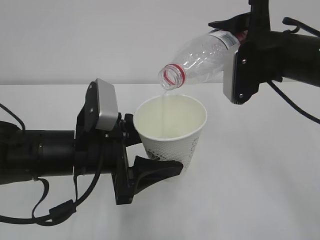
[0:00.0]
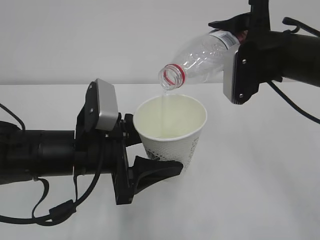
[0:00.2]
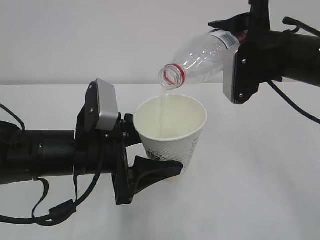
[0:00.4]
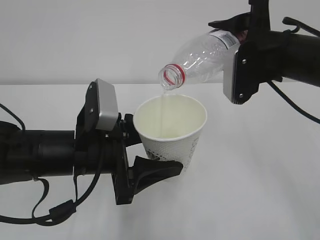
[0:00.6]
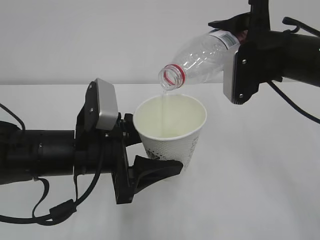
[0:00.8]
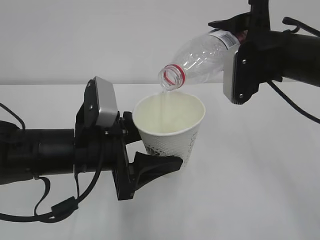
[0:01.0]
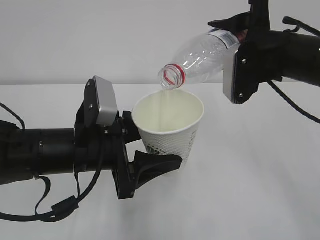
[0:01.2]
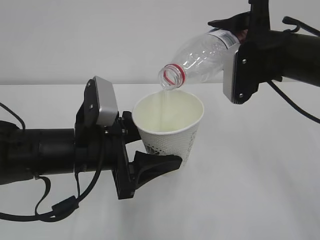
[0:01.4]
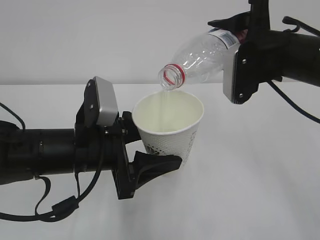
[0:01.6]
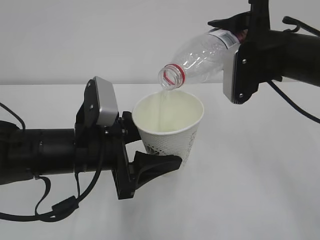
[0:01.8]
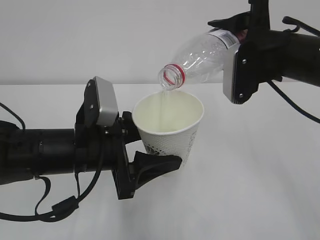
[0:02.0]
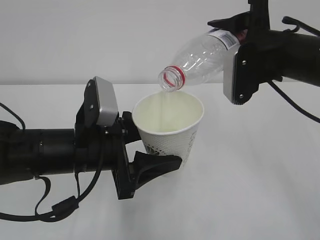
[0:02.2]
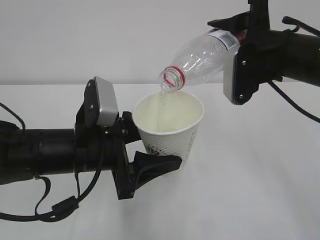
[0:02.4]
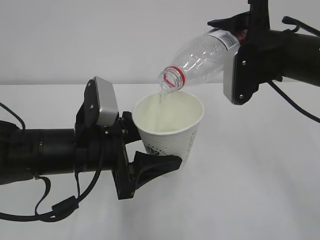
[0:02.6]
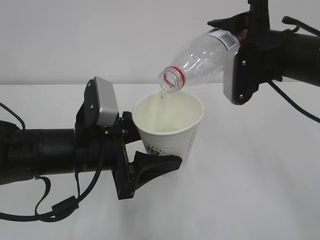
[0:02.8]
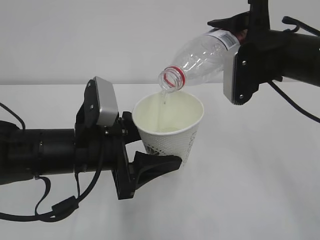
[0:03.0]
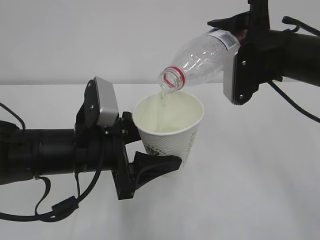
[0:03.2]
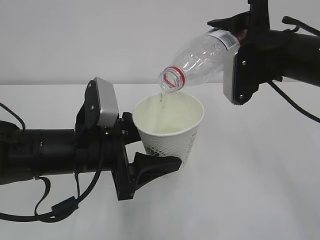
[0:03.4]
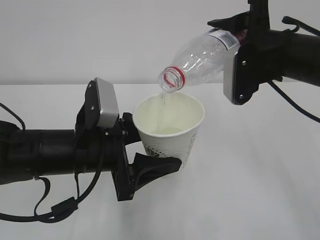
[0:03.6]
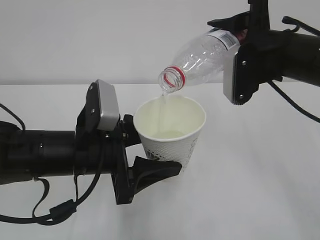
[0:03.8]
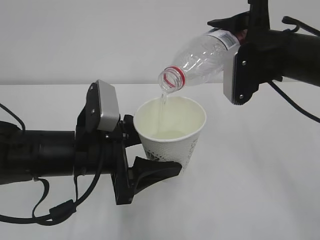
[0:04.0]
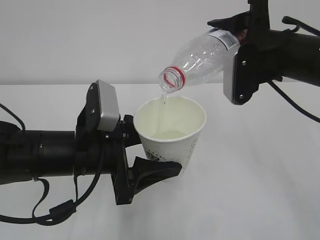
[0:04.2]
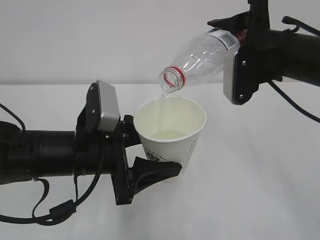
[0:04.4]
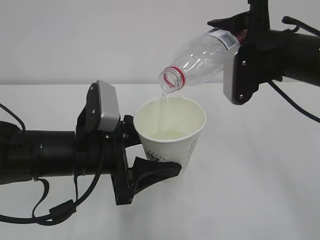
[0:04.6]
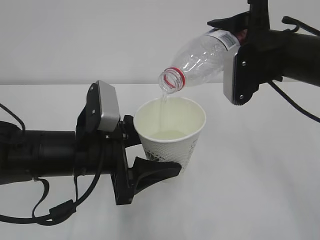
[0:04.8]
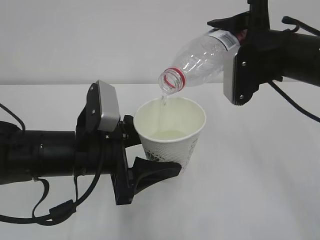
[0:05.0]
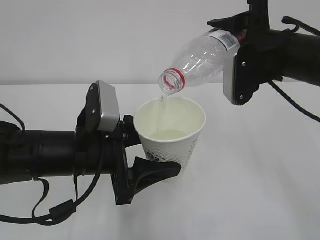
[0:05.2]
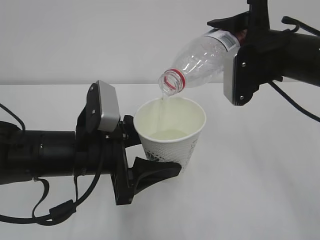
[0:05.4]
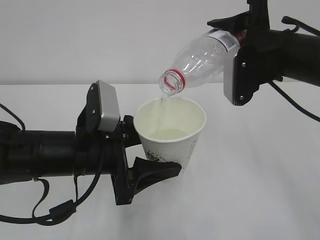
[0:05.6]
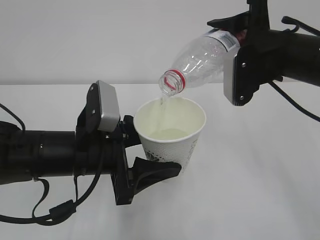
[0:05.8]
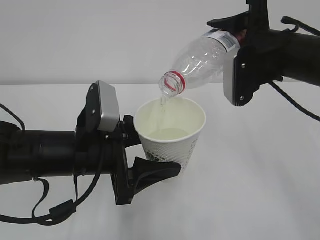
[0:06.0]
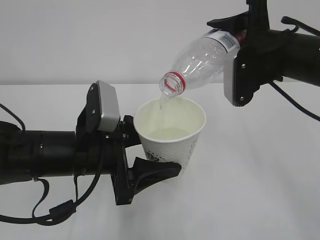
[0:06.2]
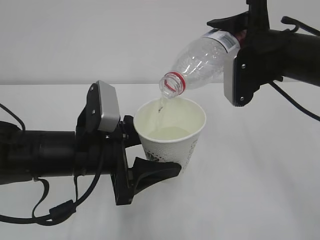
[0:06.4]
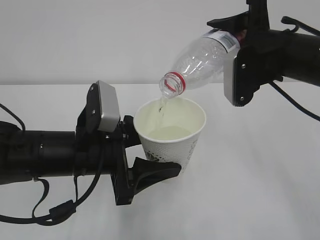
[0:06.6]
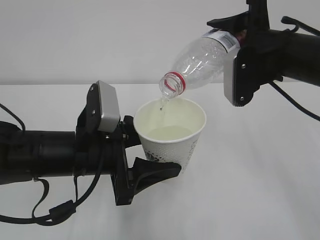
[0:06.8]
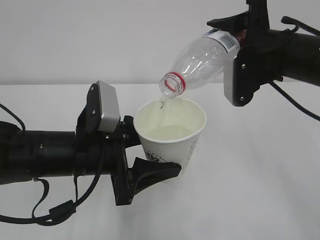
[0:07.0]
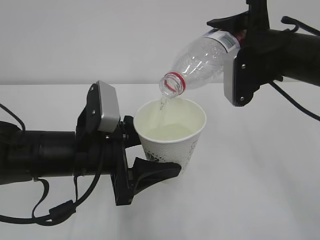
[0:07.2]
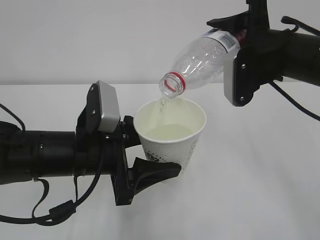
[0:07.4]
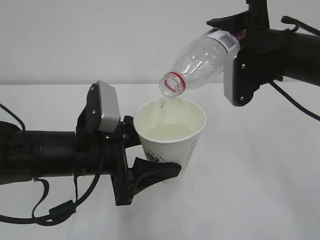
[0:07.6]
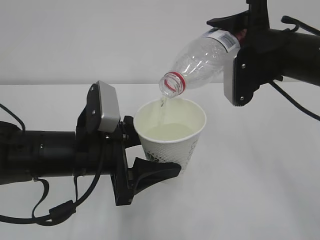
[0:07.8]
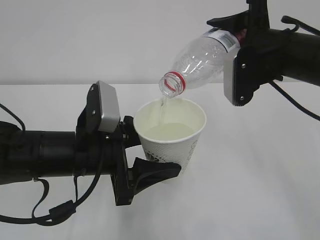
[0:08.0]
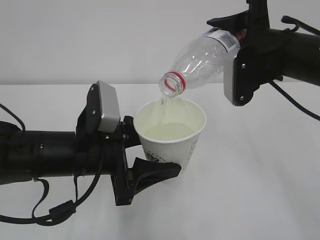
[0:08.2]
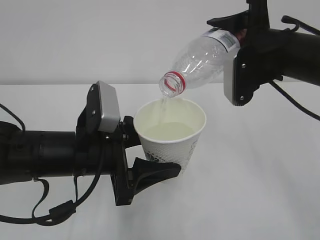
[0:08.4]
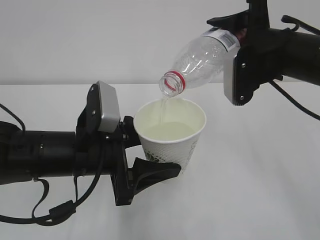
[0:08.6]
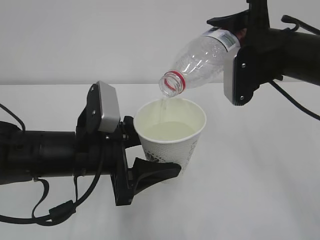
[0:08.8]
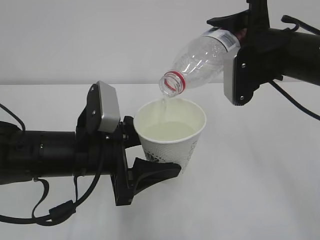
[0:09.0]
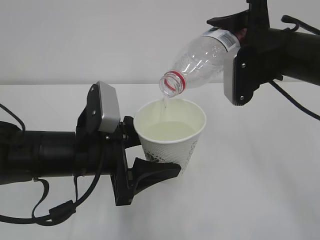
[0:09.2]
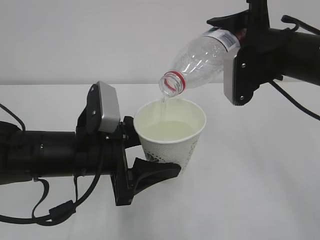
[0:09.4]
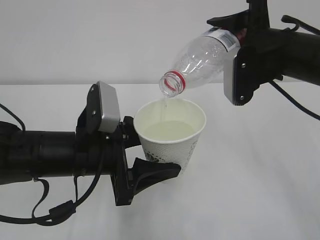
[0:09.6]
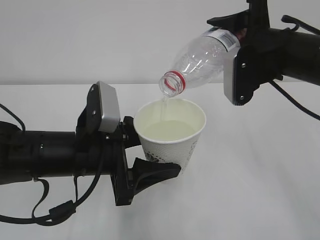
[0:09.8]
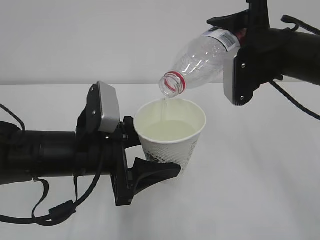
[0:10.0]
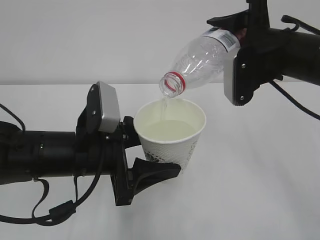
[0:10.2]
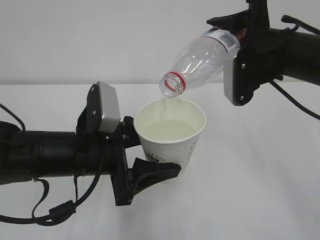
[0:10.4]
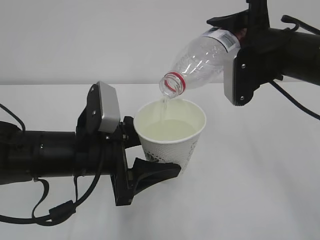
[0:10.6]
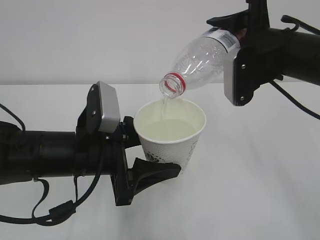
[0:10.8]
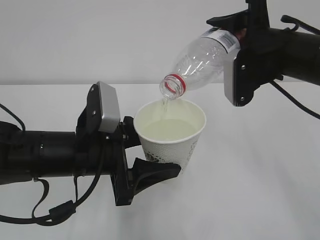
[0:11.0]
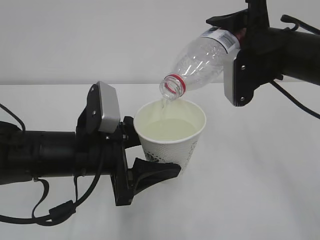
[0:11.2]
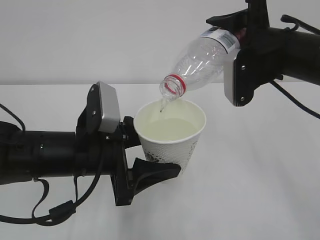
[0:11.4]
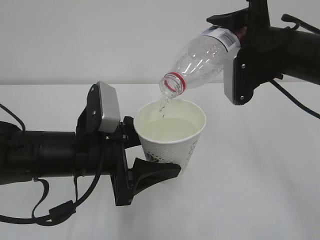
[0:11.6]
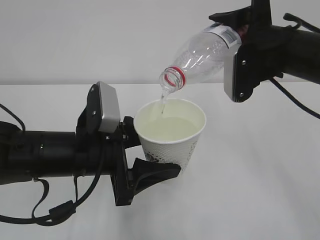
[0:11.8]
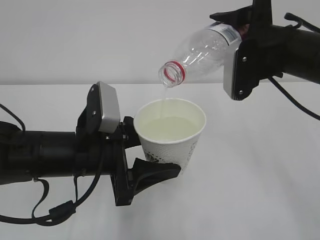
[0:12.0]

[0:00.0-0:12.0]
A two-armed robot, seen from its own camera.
0:00.0 to 0:06.0: Both grippers stay about where they are.
0:06.0 to 0:12.0: Neither gripper changes place.

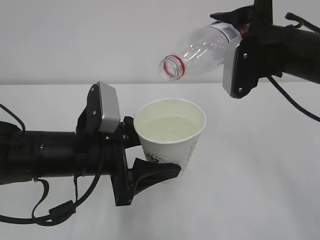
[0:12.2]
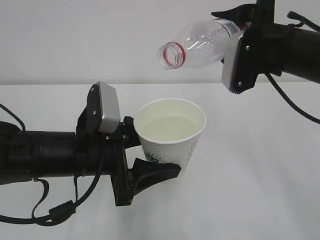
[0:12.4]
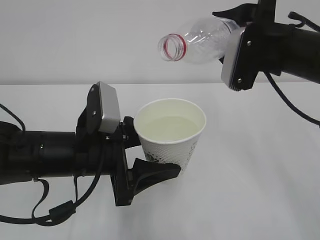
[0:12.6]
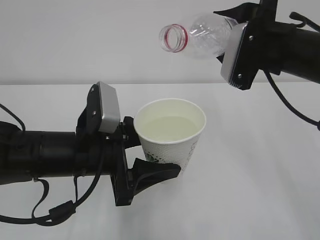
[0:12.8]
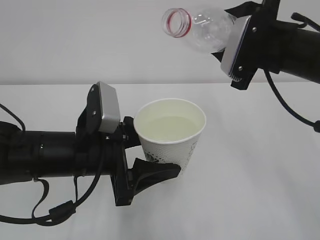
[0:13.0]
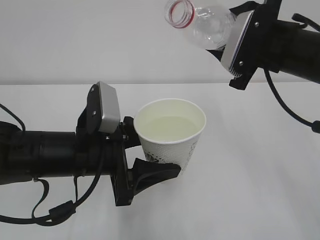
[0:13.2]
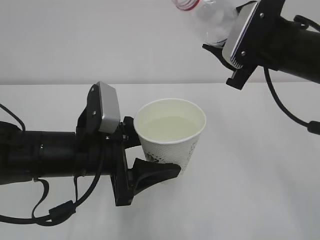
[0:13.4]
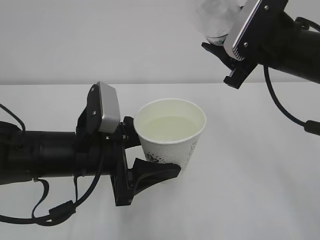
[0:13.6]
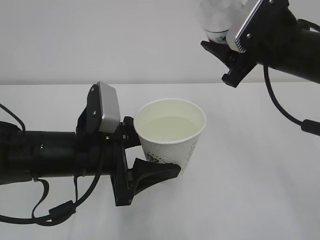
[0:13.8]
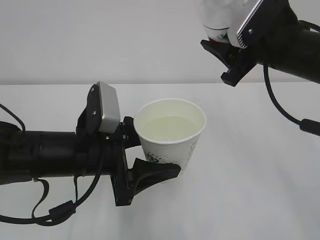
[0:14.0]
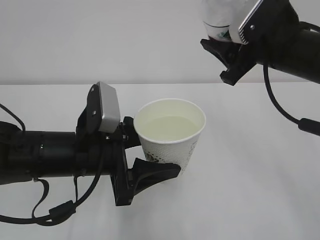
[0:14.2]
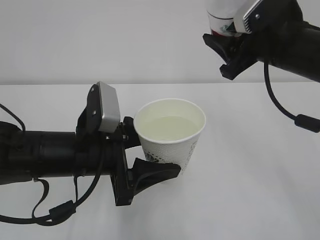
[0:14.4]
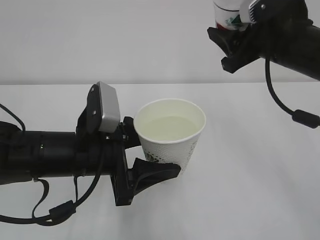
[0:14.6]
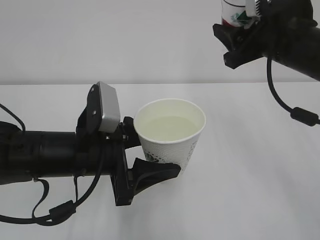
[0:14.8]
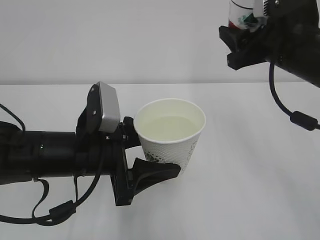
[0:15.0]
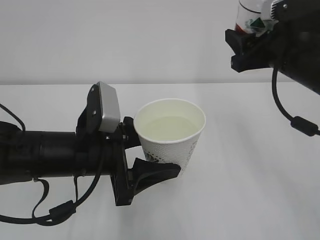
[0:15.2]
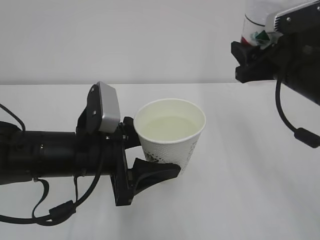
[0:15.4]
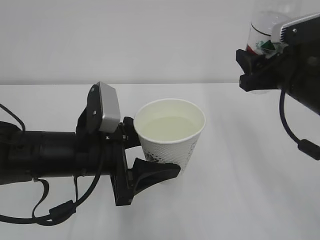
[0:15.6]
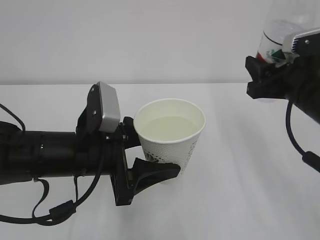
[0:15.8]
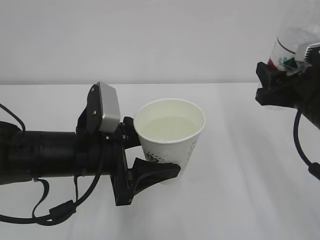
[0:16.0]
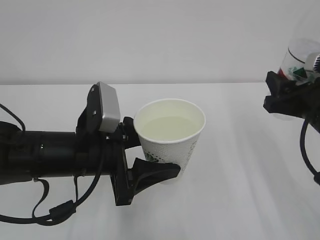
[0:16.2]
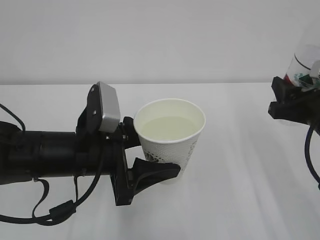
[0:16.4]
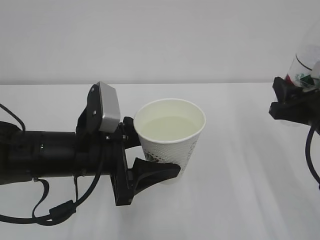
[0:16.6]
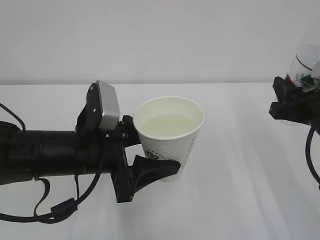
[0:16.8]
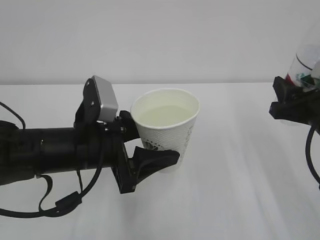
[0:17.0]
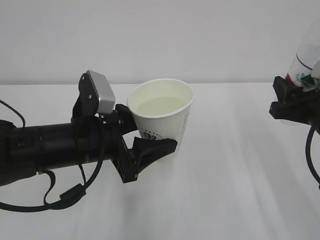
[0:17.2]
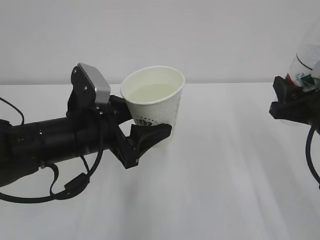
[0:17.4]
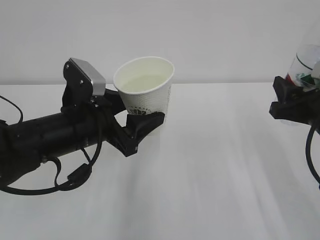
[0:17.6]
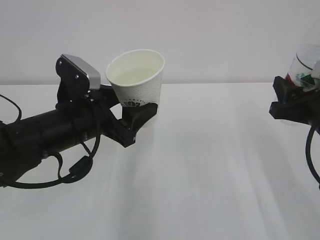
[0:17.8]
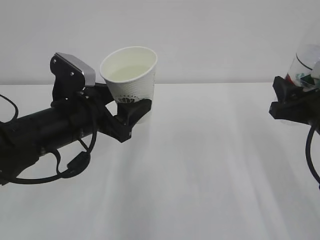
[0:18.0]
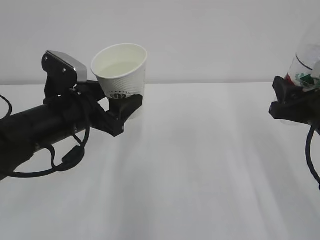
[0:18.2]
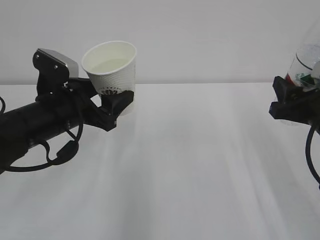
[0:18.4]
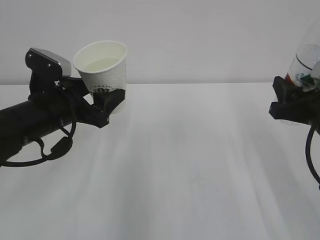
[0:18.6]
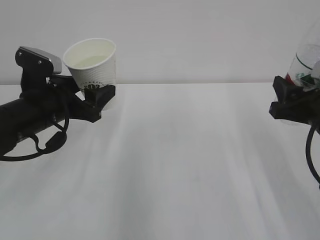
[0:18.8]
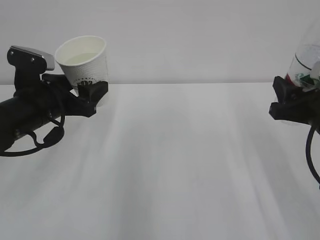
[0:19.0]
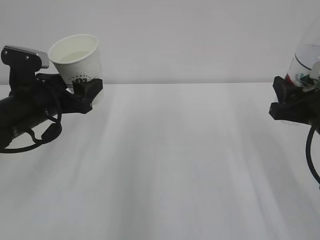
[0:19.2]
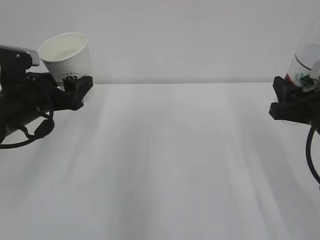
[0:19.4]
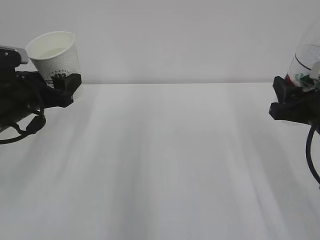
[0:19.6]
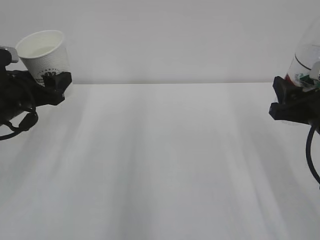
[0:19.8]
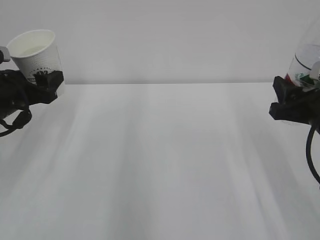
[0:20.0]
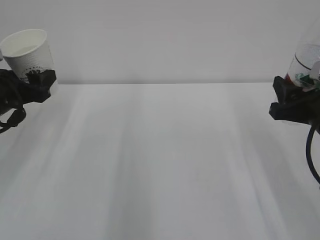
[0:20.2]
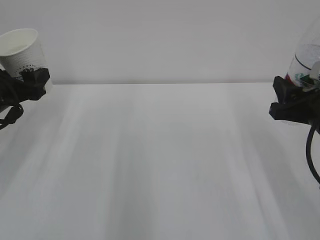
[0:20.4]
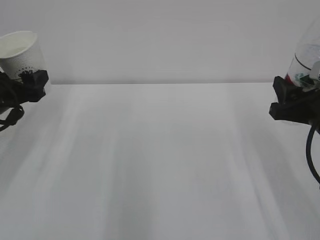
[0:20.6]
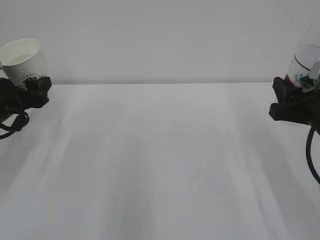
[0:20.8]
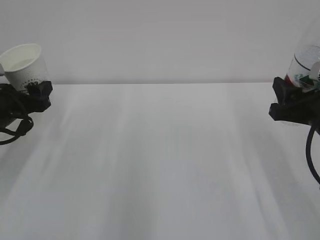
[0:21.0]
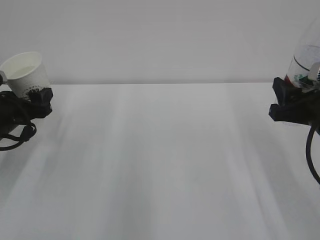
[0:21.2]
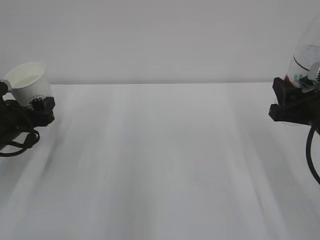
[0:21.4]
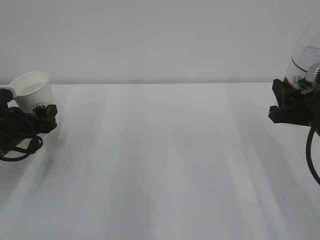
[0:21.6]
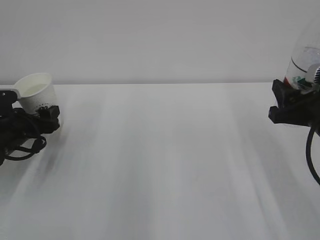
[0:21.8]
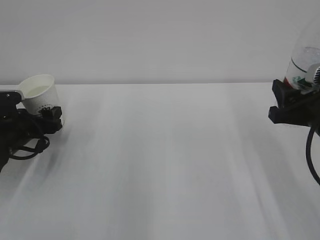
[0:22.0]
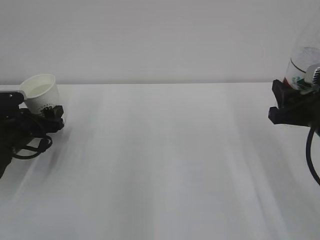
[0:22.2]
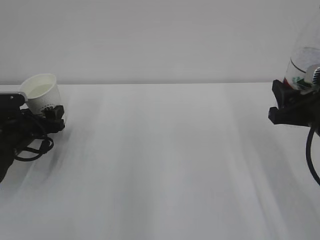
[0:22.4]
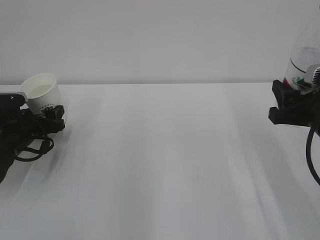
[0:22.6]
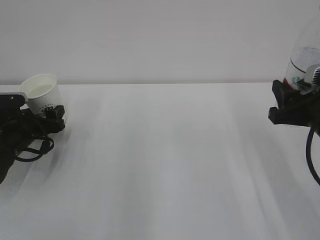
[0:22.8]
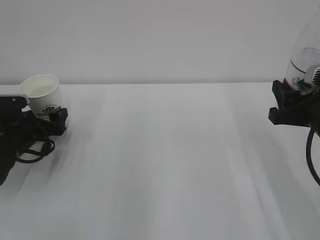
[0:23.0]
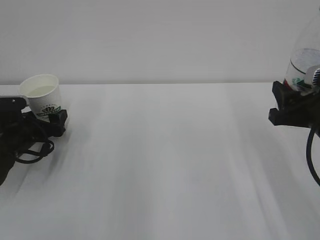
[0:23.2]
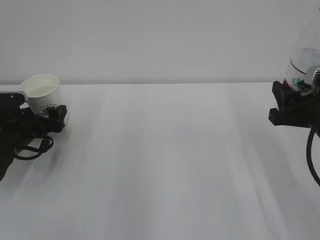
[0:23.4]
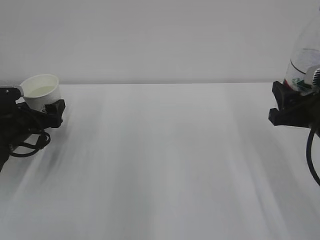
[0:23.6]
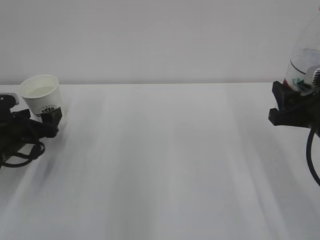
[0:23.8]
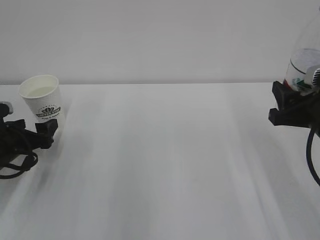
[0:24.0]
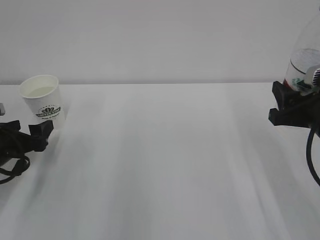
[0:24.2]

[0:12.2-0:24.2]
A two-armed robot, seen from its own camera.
0:15.2 to 0:16.6: The right gripper travels downward and backward by approximately 10 cm.
0:16.6 to 0:18.2: The left gripper travels forward by some 5 cm.
0:18.2 to 0:19.8: The left gripper moves to the left, about 10 cm.
0:19.8 to 0:21.2: The left gripper heads downward, covering roughly 5 cm.
0:21.2 to 0:22.6: The left gripper shifts roughly 5 cm downward.
0:22.6 to 0:24.2: The left gripper moves backward, roughly 5 cm, and opens.
